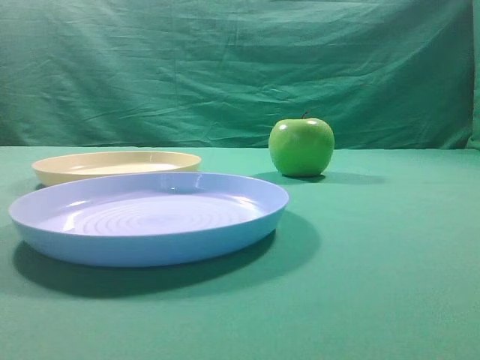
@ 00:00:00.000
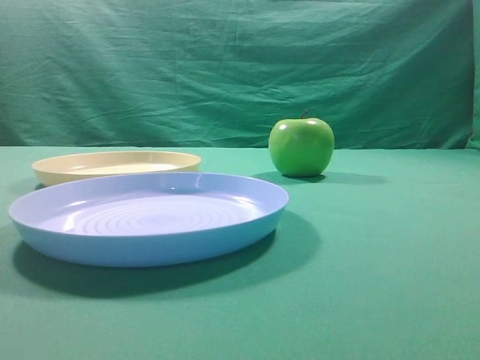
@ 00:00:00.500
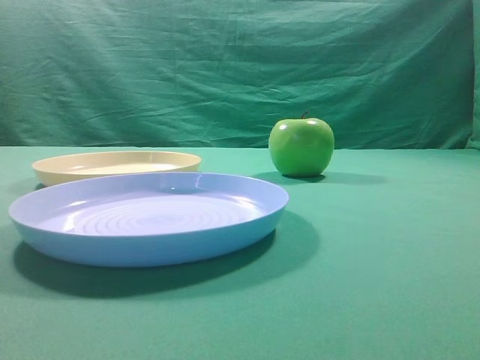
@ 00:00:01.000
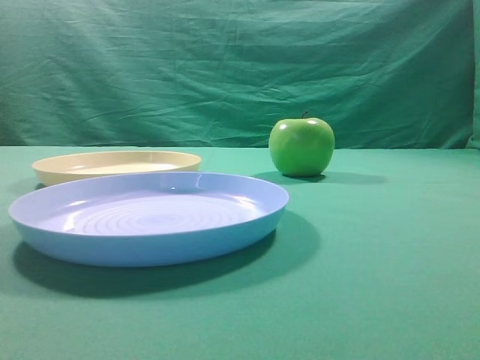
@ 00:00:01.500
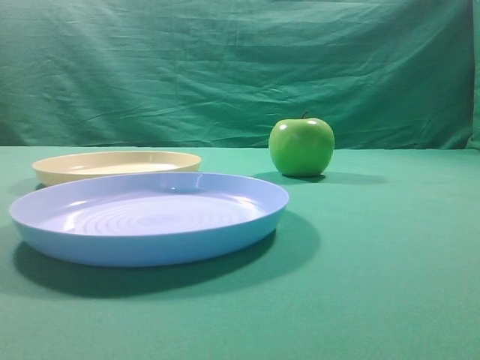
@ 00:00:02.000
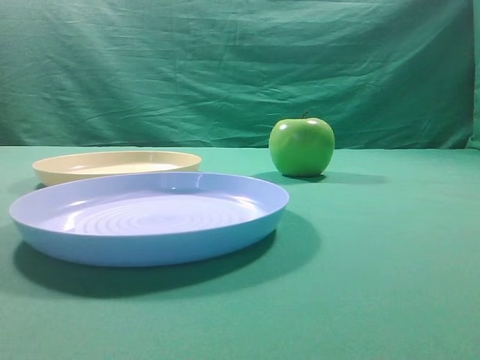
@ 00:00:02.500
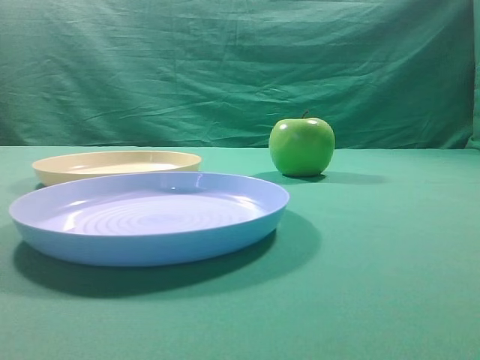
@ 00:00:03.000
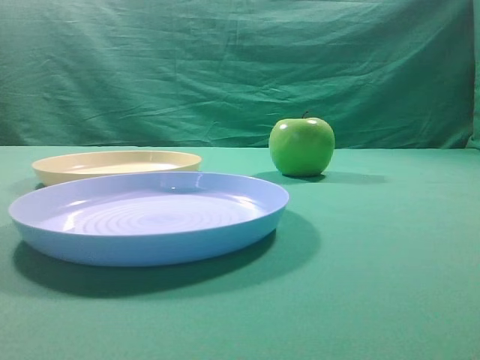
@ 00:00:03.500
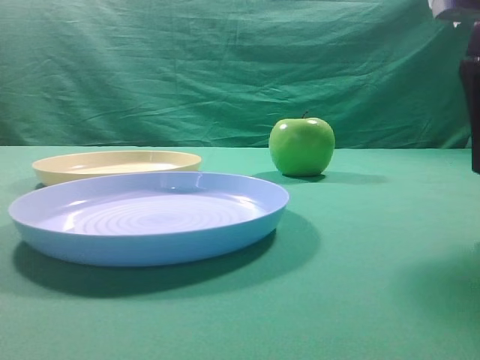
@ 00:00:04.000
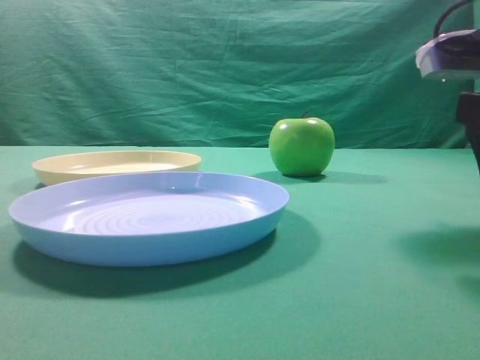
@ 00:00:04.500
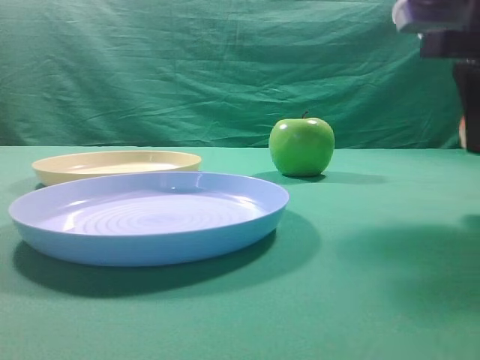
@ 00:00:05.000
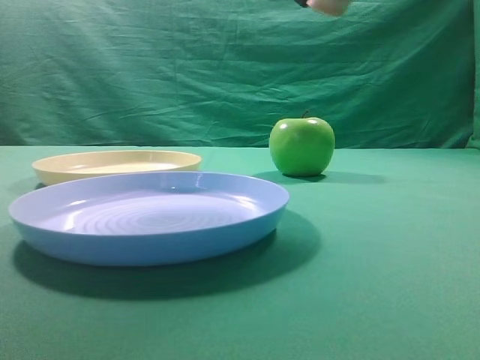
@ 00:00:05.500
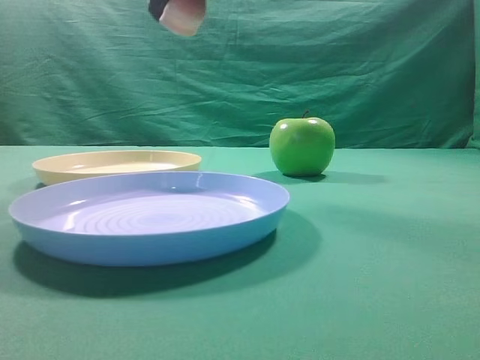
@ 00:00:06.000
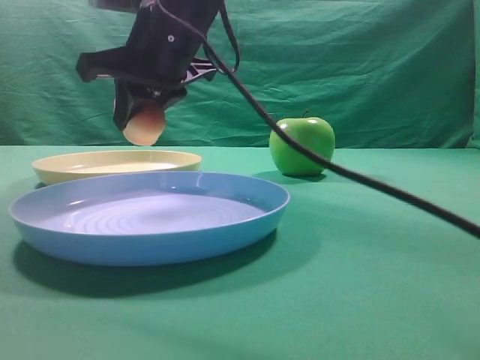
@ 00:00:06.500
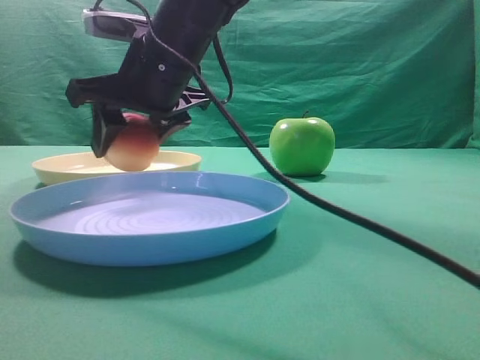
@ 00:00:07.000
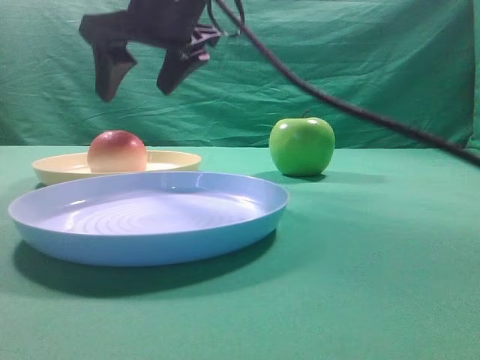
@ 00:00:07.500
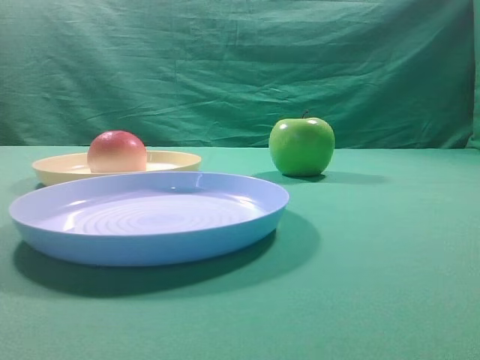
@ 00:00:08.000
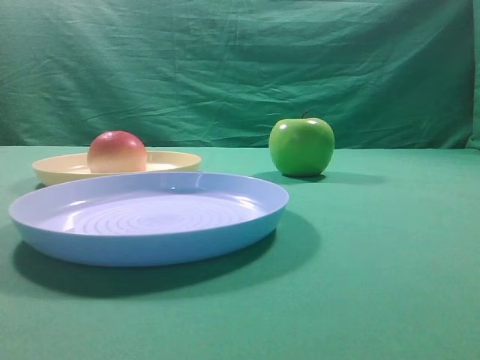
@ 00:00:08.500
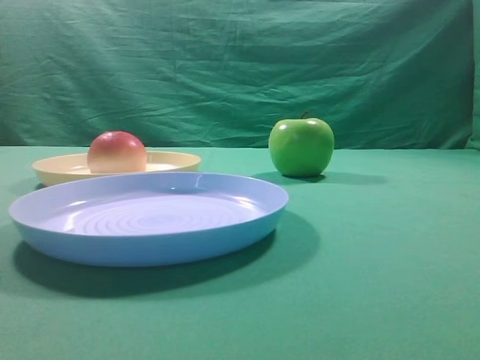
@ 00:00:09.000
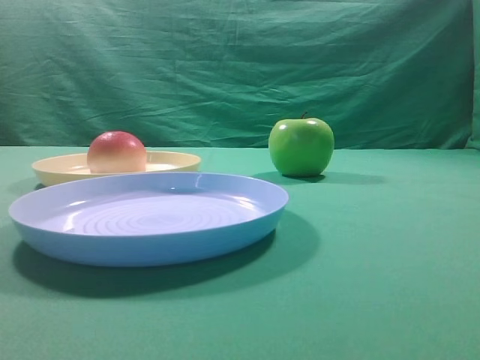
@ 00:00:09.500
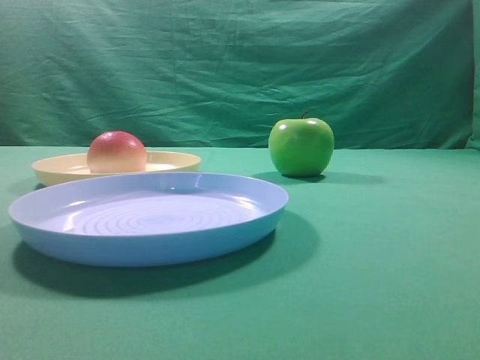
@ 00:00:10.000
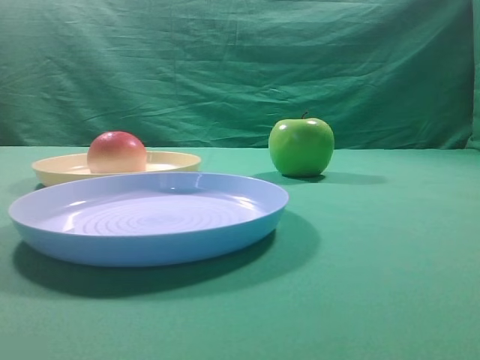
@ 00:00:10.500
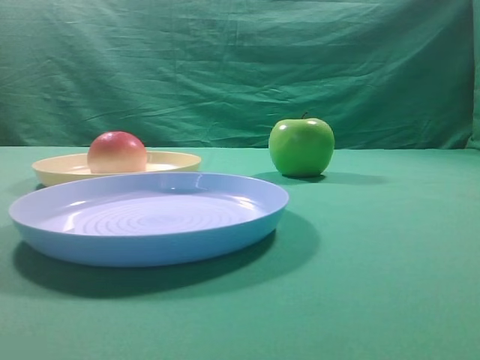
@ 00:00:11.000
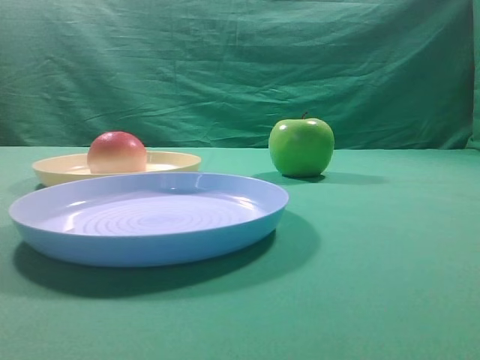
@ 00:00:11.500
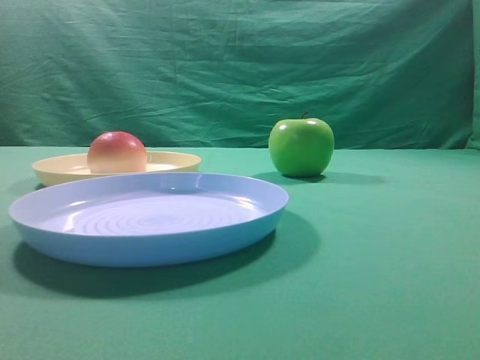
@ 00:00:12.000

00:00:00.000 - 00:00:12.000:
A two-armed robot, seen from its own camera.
Step, 00:00:05.500 - 00:00:07.000: Place the picked object on the yellow plate.

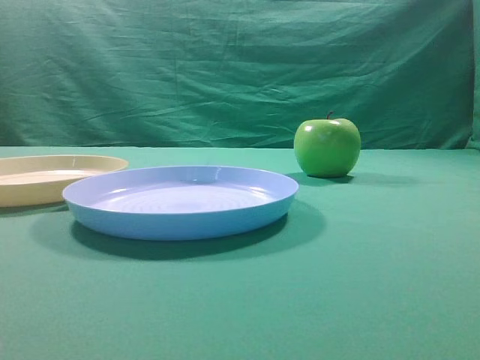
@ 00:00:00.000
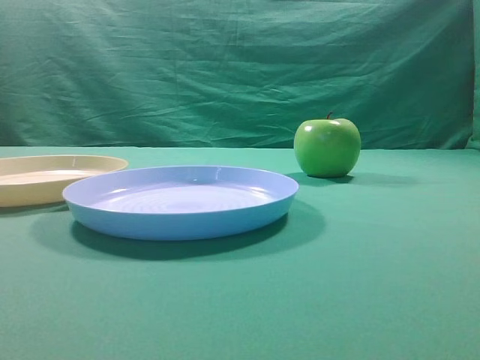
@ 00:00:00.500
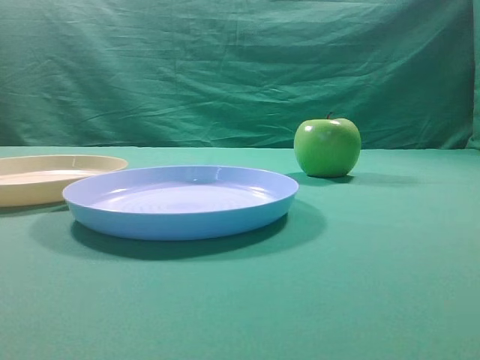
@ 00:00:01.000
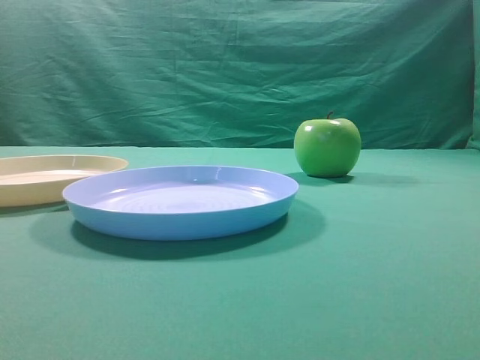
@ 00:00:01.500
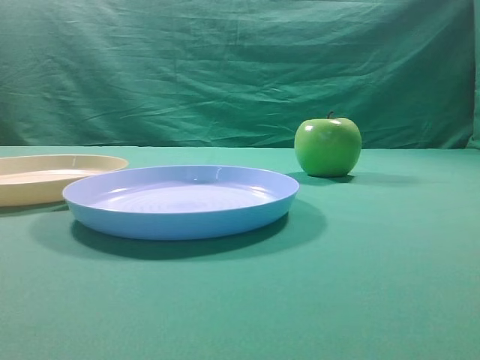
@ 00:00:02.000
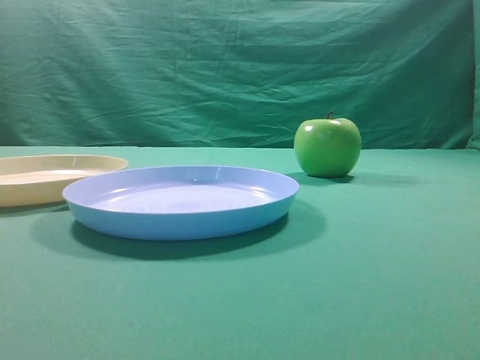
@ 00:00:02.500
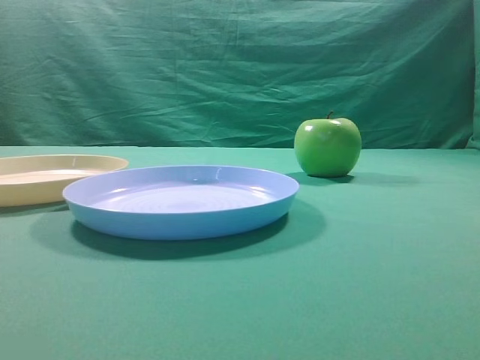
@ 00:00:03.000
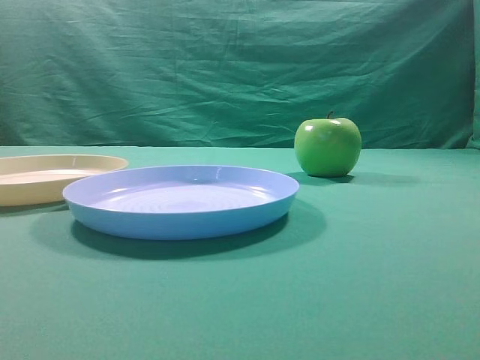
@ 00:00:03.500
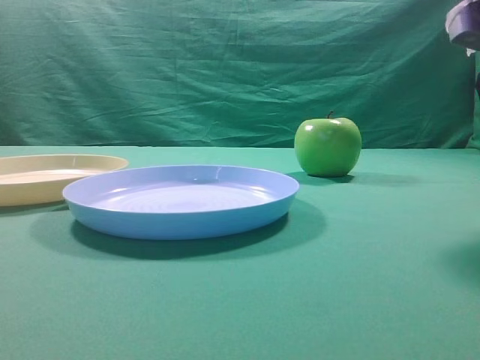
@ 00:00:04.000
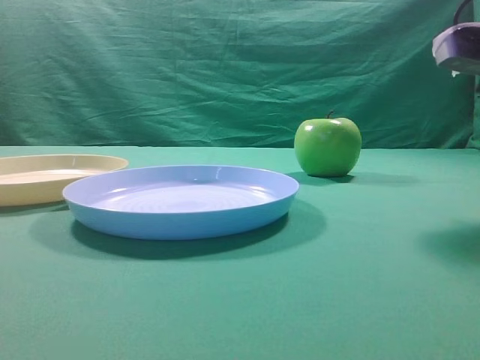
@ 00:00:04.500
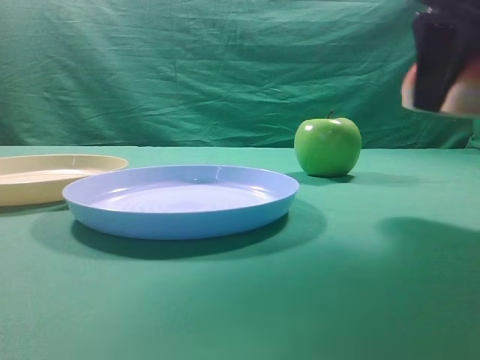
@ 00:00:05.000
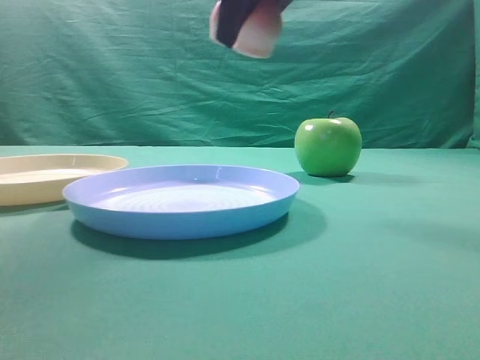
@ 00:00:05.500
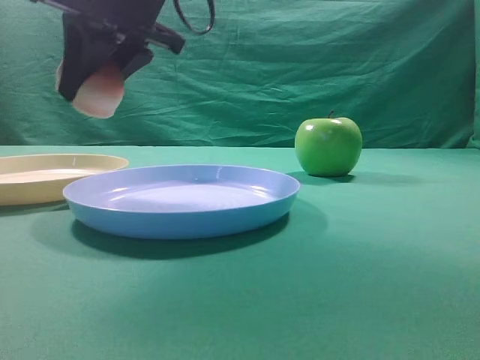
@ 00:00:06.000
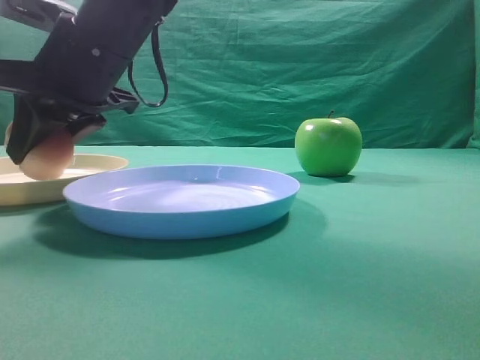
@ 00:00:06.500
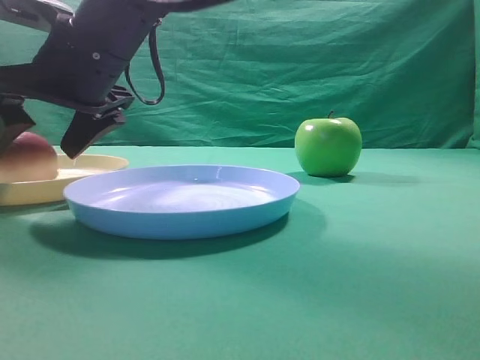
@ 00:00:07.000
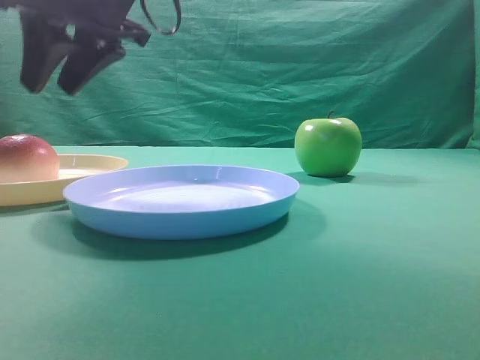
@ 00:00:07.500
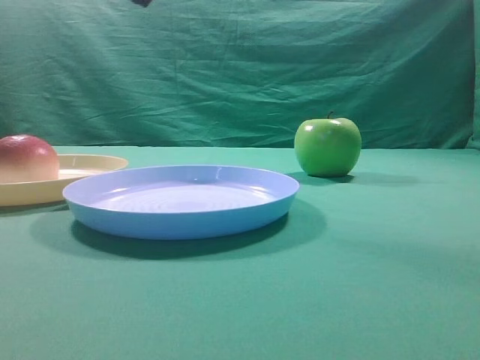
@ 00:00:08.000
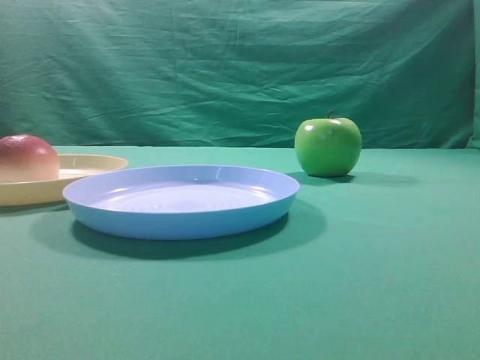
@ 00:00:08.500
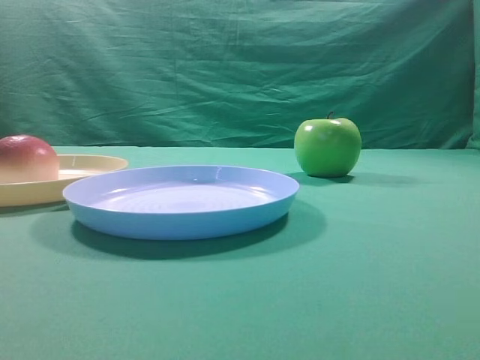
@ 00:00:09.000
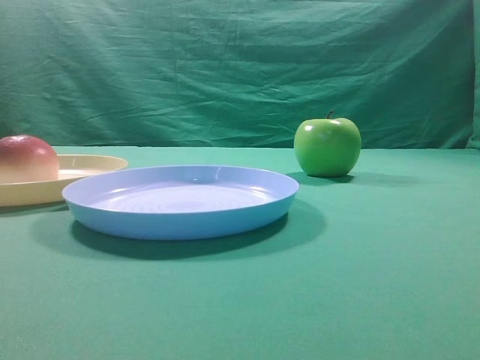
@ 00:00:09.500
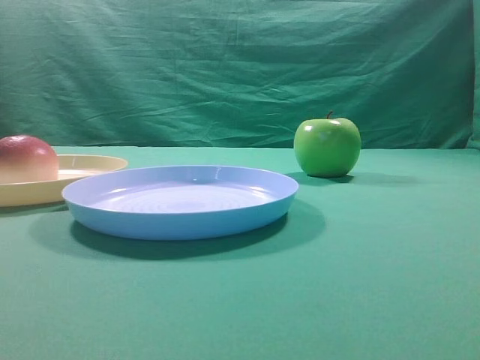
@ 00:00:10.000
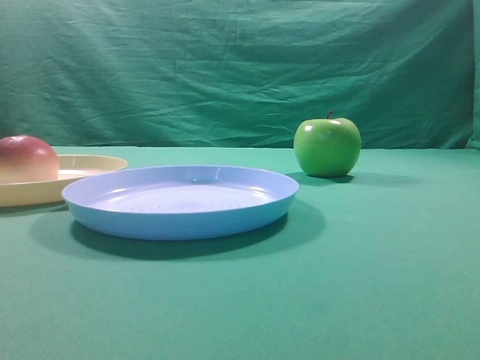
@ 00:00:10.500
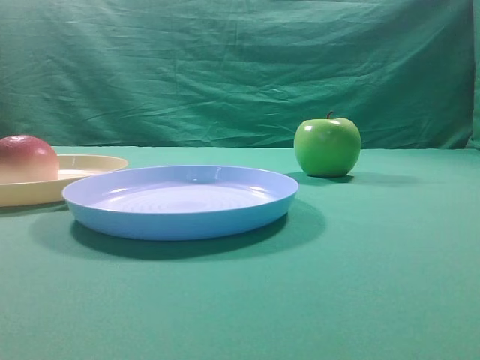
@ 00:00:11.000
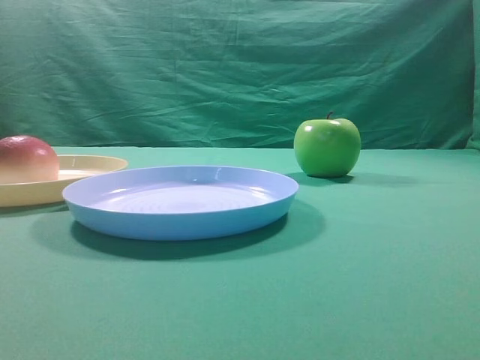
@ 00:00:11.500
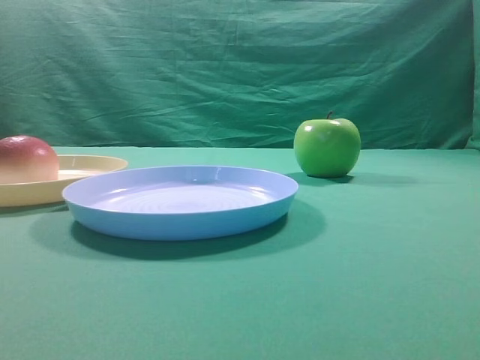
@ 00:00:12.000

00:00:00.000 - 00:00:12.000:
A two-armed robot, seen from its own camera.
Step, 00:00:05.000 - 00:00:07.000: Place the picked object on the yellow plate.
